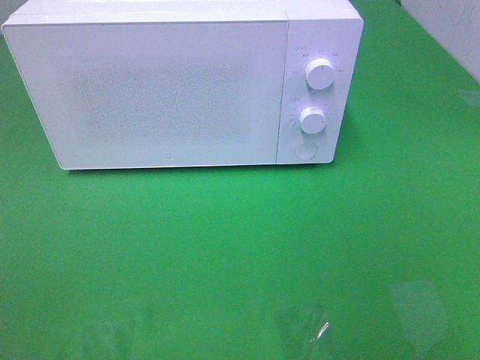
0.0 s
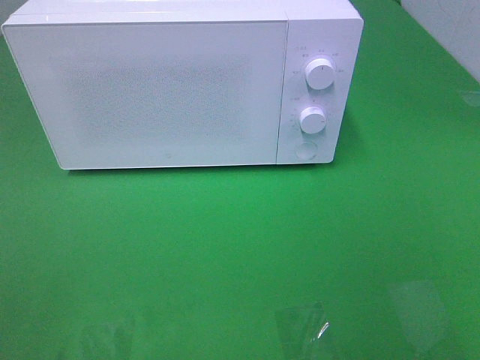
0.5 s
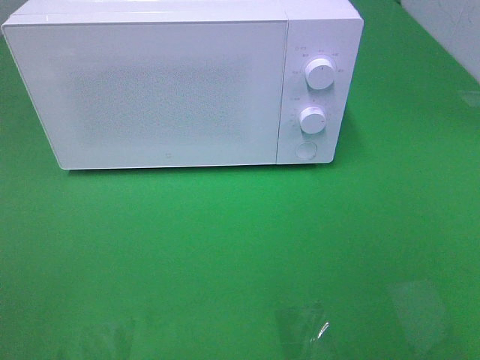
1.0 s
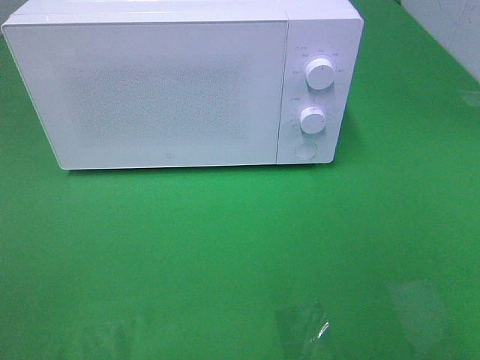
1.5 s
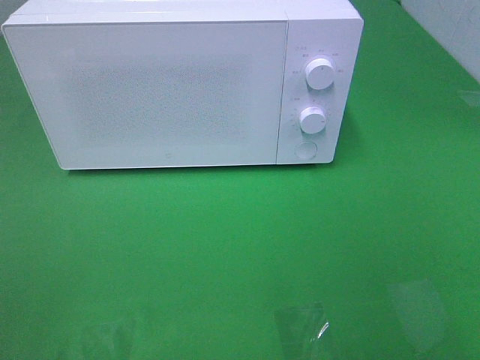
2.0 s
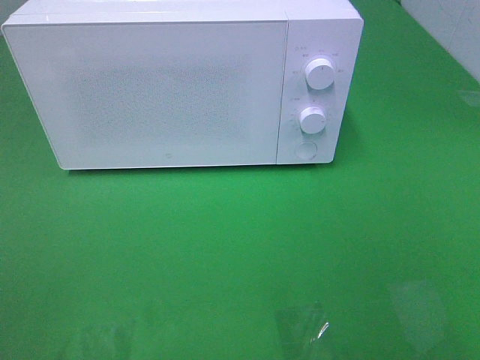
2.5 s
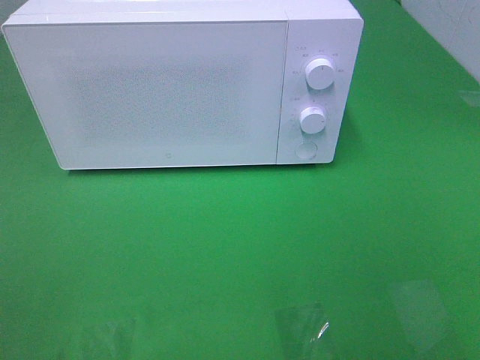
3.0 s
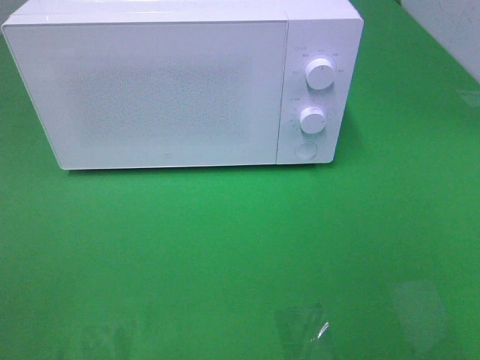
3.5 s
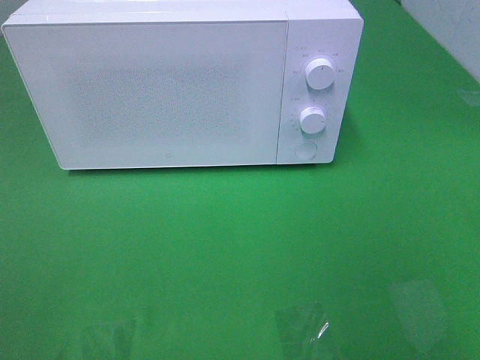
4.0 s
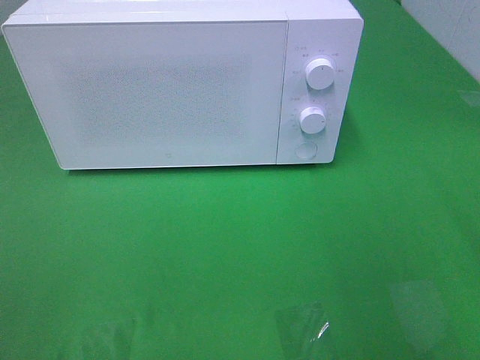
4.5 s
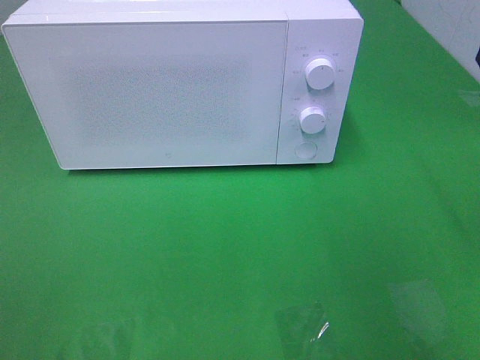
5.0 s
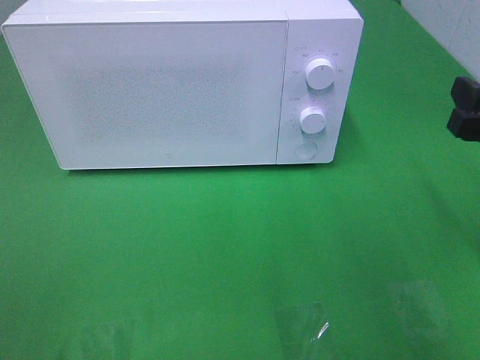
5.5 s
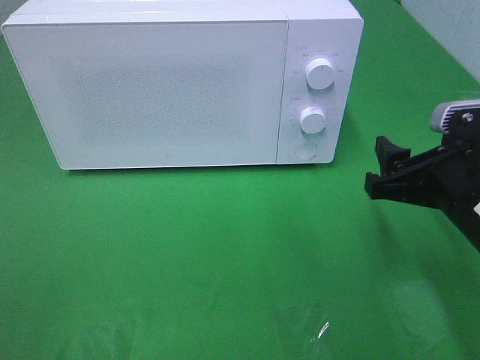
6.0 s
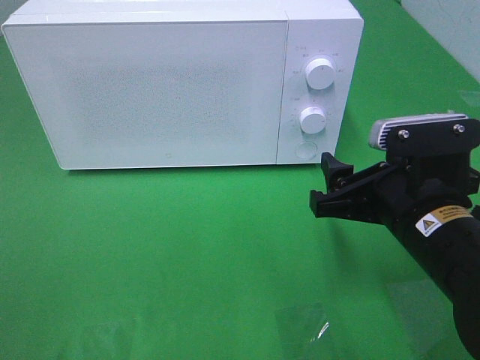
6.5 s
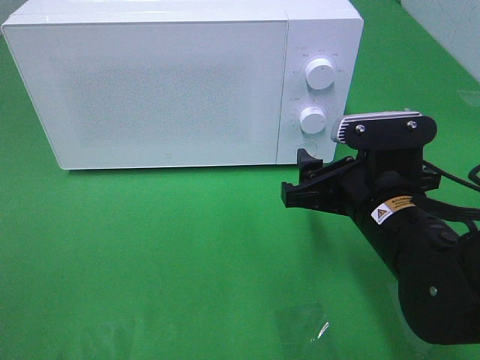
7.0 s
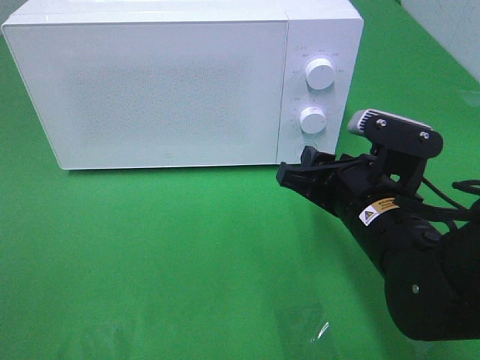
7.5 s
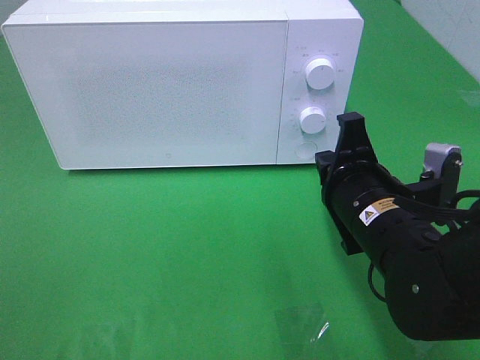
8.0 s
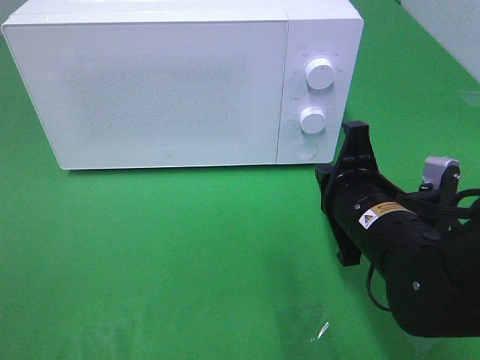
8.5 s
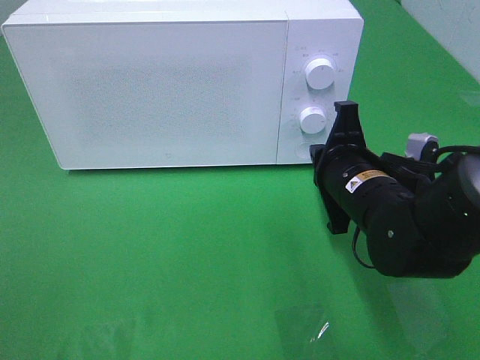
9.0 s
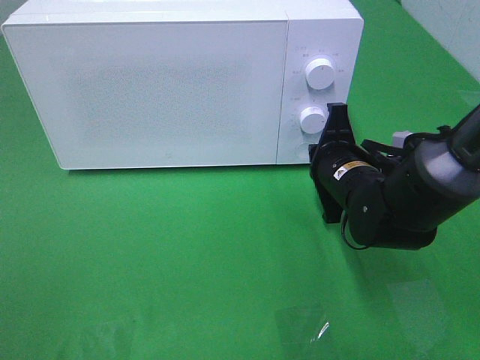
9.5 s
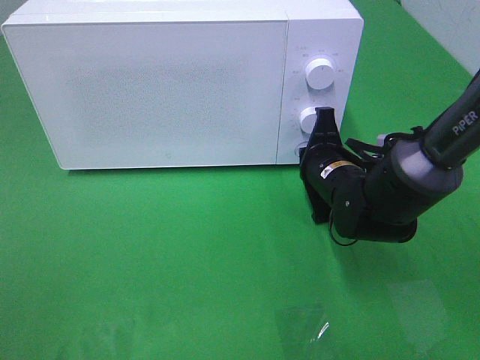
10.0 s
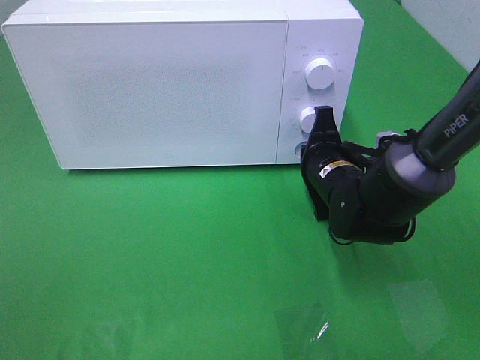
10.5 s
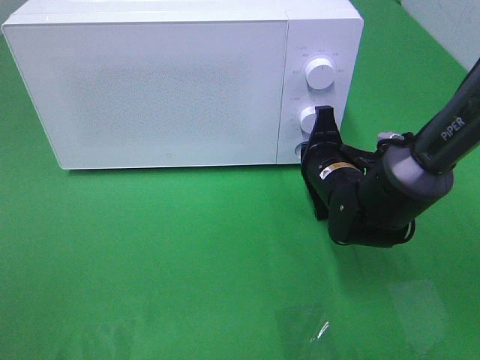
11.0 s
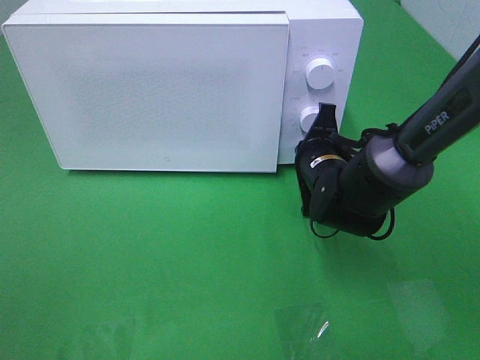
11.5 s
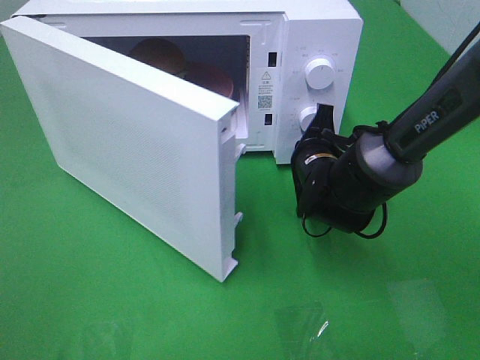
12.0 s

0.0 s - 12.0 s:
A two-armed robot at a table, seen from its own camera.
Task of the whole recording: Heat the burger.
4.0 s - 6.0 s: The right gripper shifts about 20 cm downward, forward and to the left.
6.0 s - 8.0 s: The right gripper travels to the left by some 10 cm, and closes up.
8.0 s - 10.0 s: The right gripper is displaced forward and downward by about 15 cm.

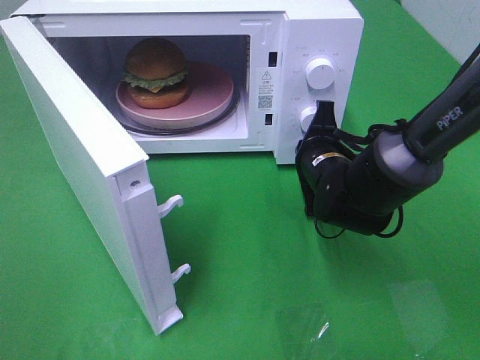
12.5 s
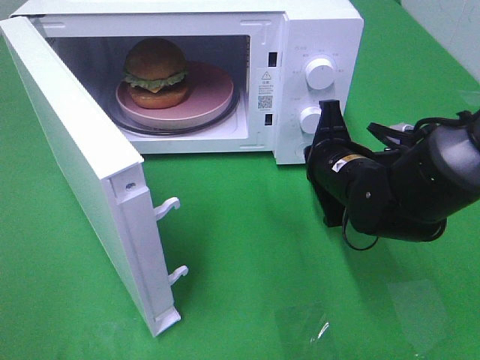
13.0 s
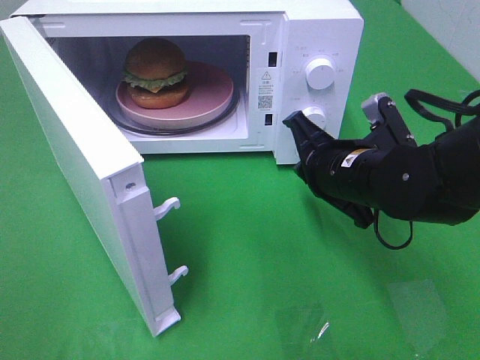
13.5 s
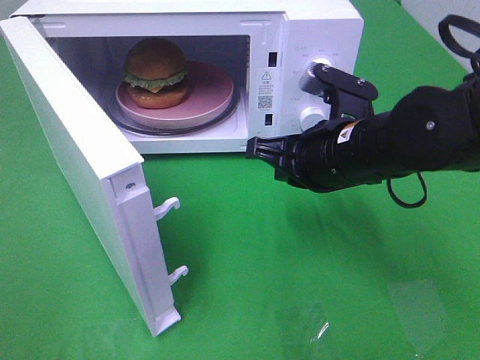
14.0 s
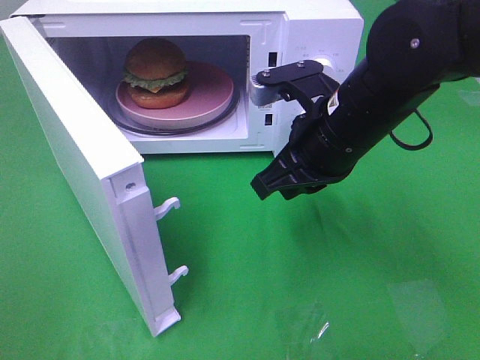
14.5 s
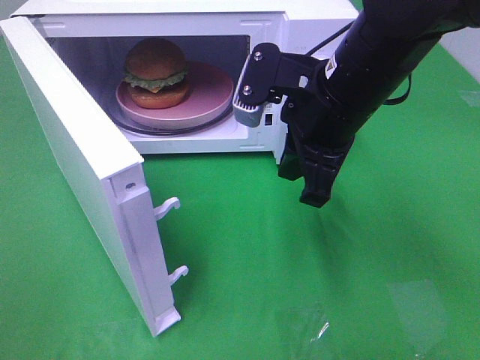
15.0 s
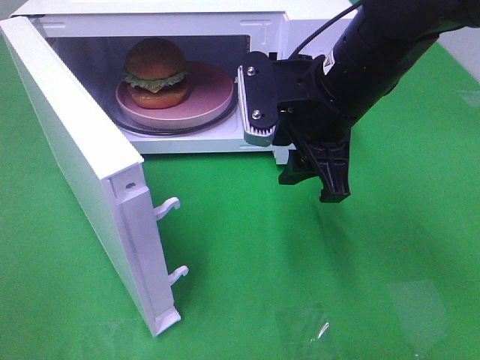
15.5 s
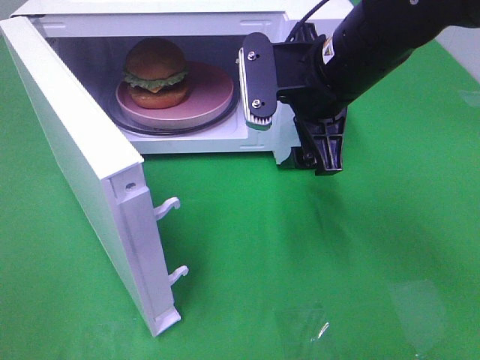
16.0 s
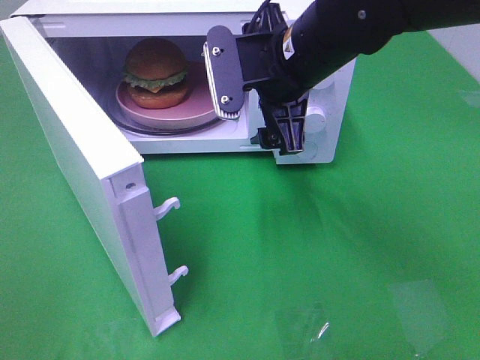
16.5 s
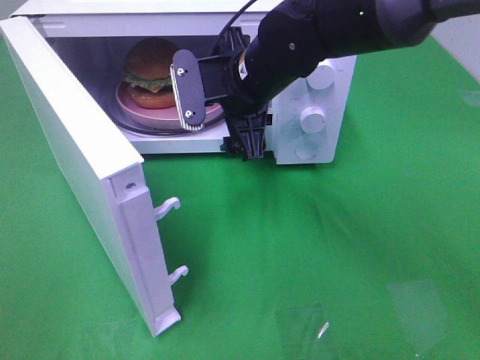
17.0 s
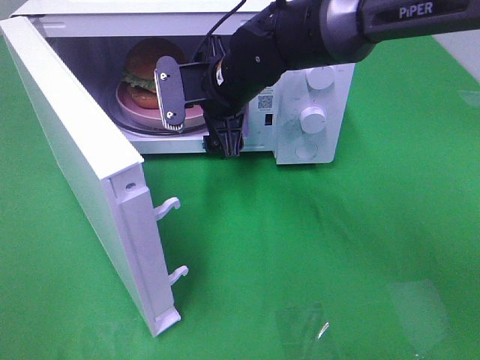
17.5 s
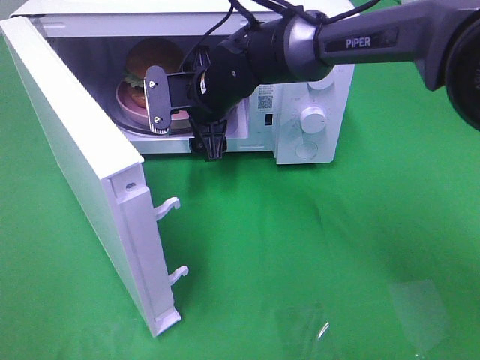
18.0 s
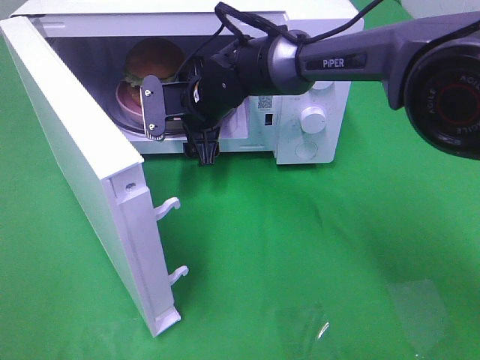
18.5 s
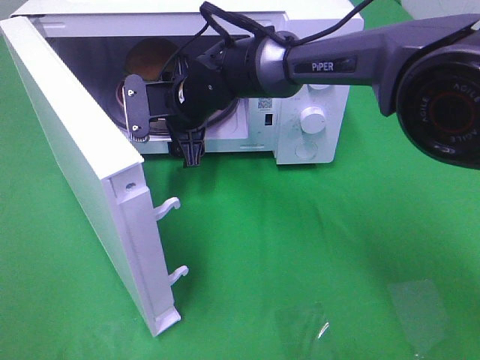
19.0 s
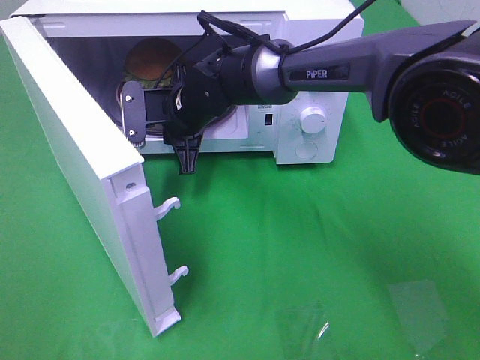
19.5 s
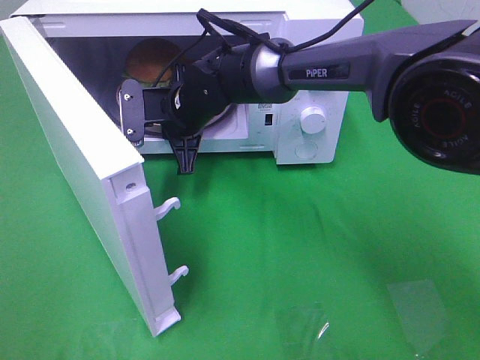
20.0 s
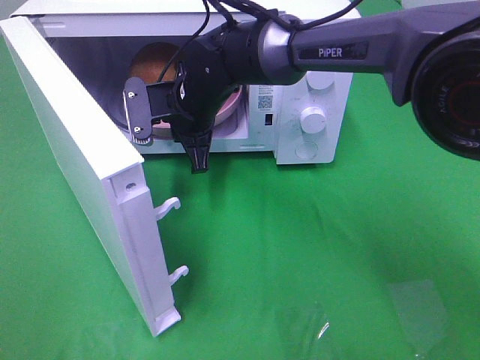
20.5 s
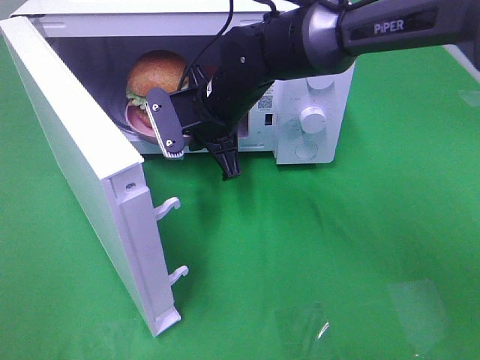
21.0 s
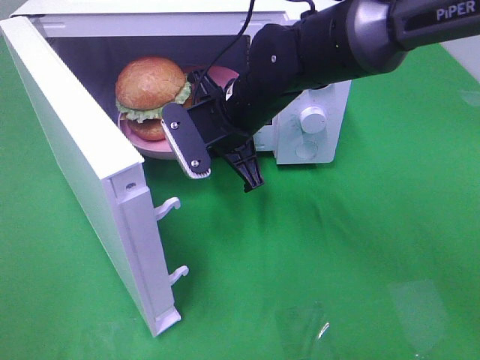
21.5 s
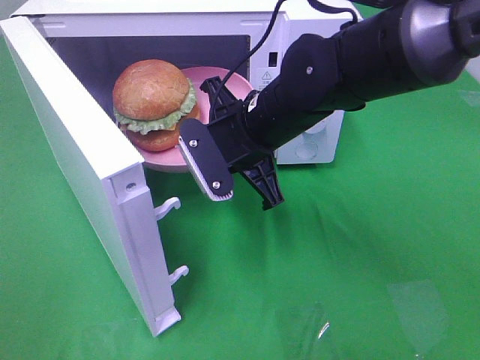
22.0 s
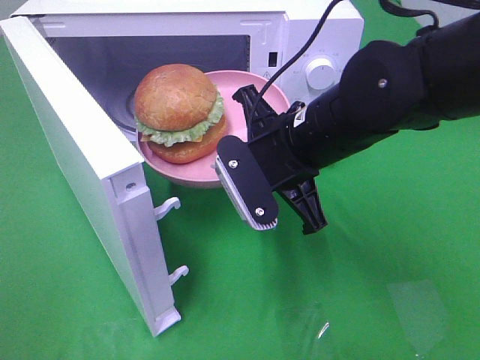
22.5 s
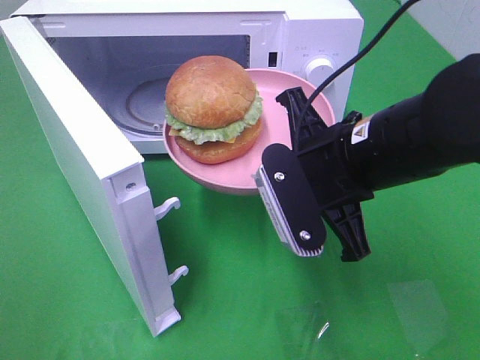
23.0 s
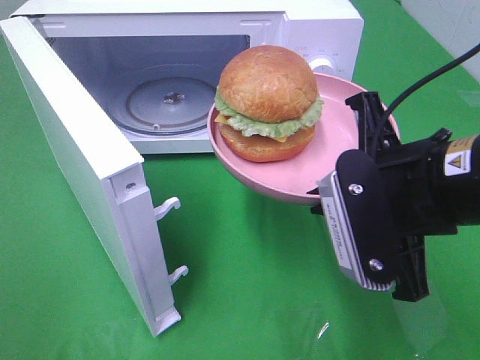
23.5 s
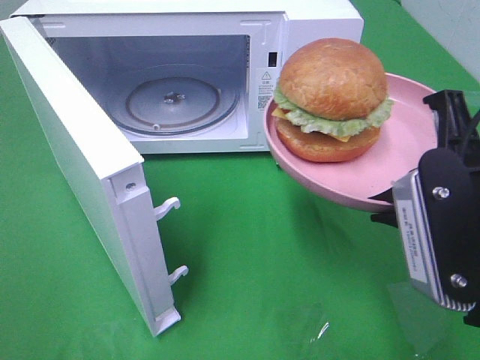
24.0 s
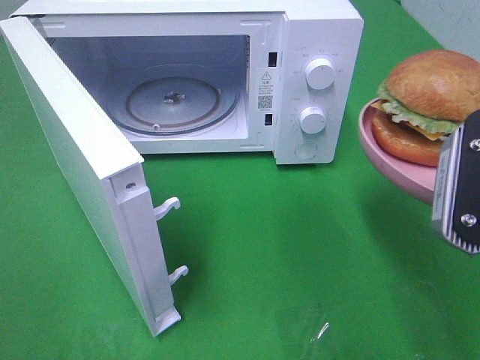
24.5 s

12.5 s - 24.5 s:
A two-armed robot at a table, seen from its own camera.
Task of the whole recording: Heat the burger.
Step, 13.0 s - 19.5 s: Right hand: grab the plate with the hamburger.
12.5 s - 14.5 s: The right gripper shifts some 15 cm upward and backward.
14.5 s - 16.5 s: The right gripper shifts roughly 5 cm forward, and opens its fingers.
16.5 s - 18.5 s: The right gripper moves downward, forward and to the left, some 15 cm.
18.5 s - 20.5 s: The right gripper closes its fingers.
20.5 s - 22.5 s: The right gripper moves backward and to the right, about 20 cm.
22.5 s - 24.5 s: The right gripper goes approximately 20 cm to the right, backward and upward.

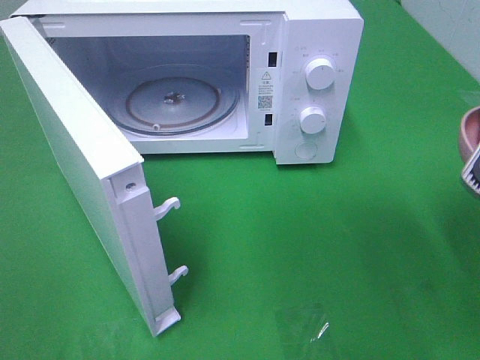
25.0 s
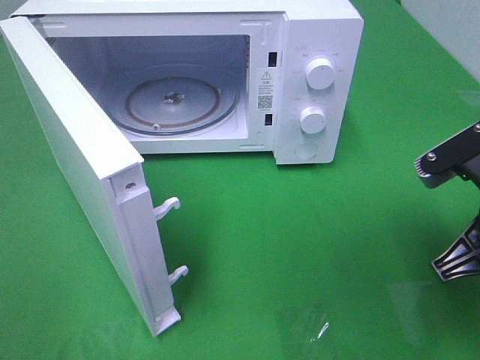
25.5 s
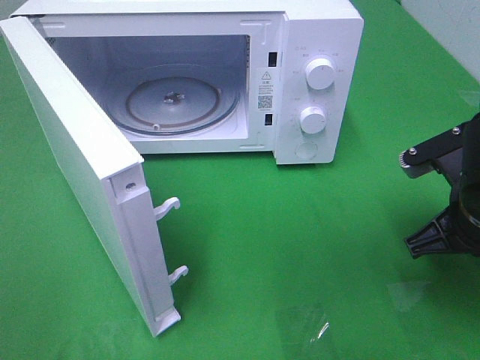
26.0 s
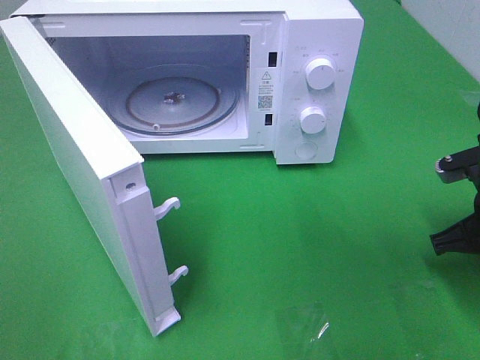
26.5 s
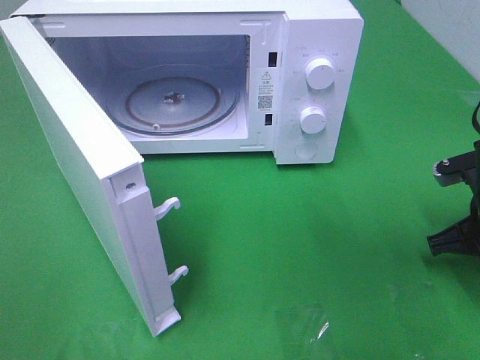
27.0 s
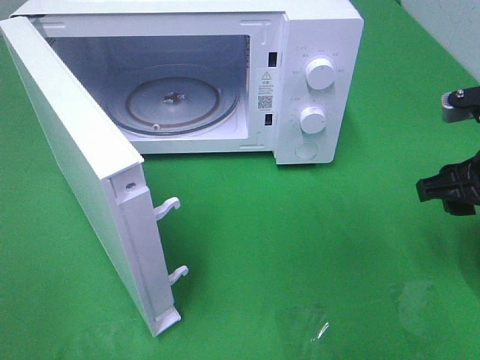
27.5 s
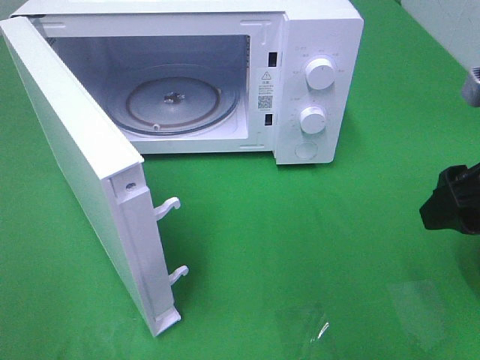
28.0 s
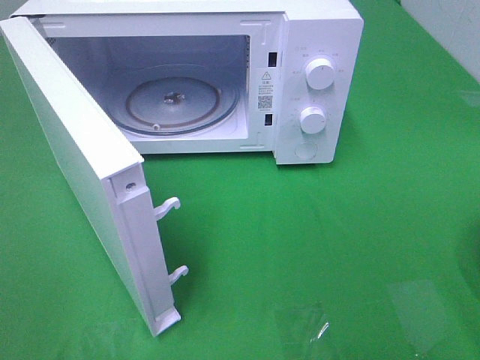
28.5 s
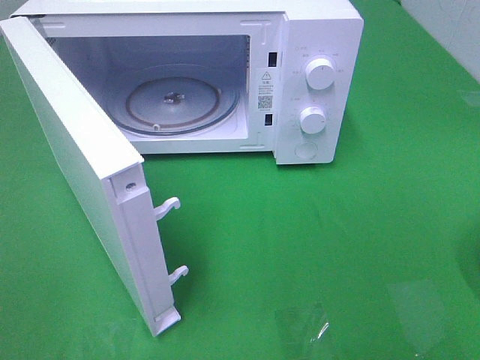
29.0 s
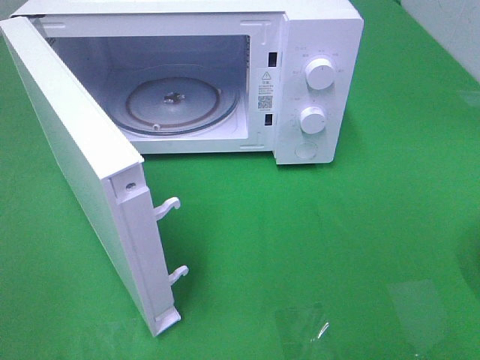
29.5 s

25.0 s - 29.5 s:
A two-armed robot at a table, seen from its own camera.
Task of the whole recording: Heat the burger.
Step, 25.0 s - 27.0 s: Right hand: place the plate on the table.
25.0 s - 27.0 s: The right gripper is displaced downward and forward by roughly 15 cm.
27.0 s - 29.5 s: The right gripper heads backward and upward, covering roughly 30 cm, and opens.
